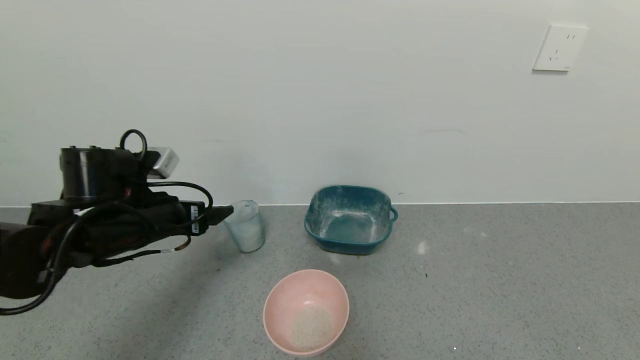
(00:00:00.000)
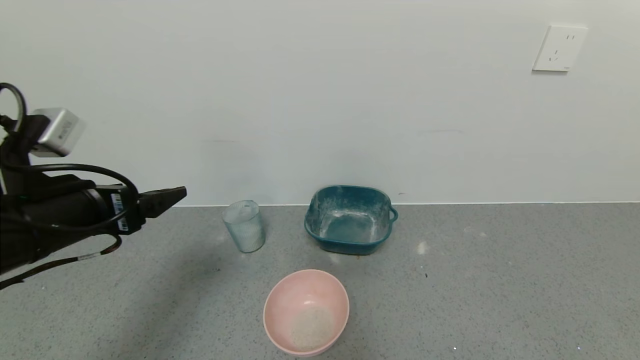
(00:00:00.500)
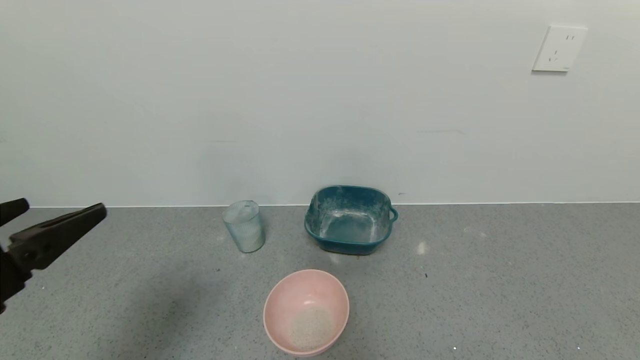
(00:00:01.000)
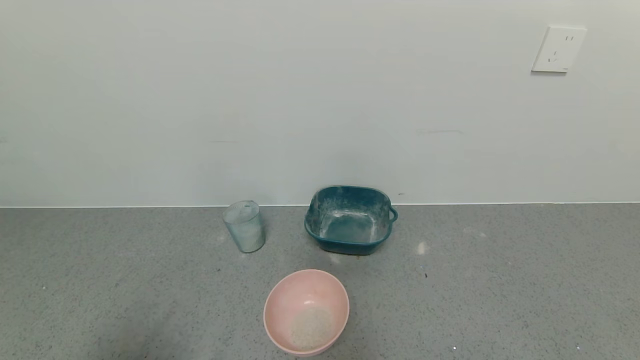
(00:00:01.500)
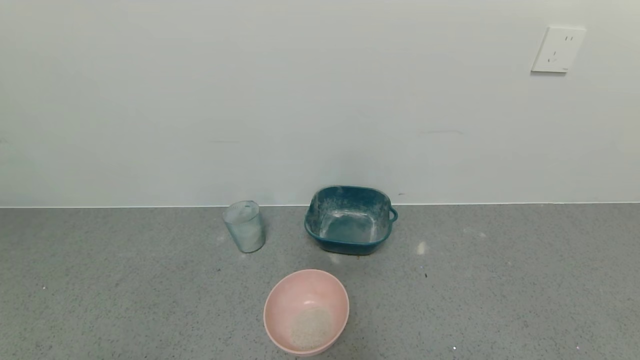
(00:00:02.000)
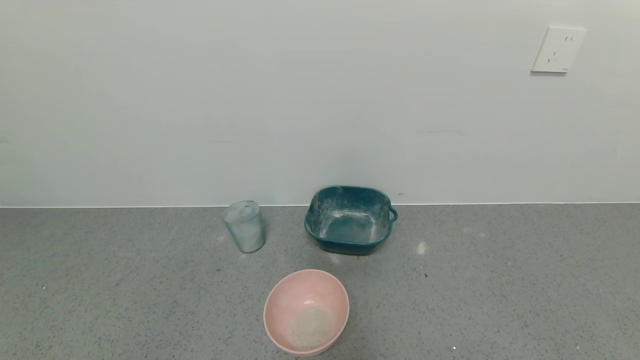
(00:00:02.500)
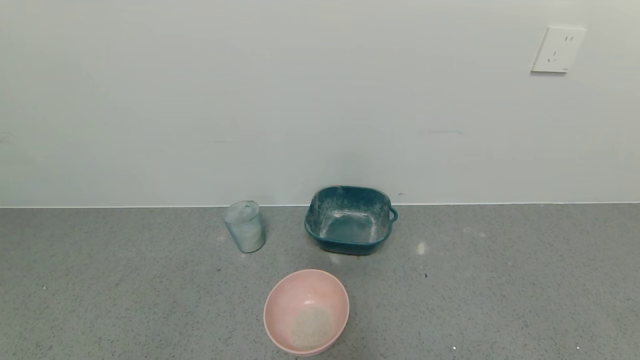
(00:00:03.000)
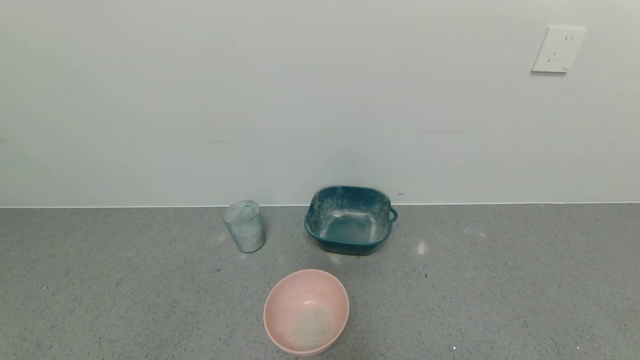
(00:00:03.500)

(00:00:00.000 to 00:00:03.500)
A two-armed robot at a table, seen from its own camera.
Task of the whole recording: use a gripper to pick up the cup and pour the powder into a bowl or tray.
00:00:00.000 - 00:00:02.000: The left gripper is displaced backward by some 30 cm.

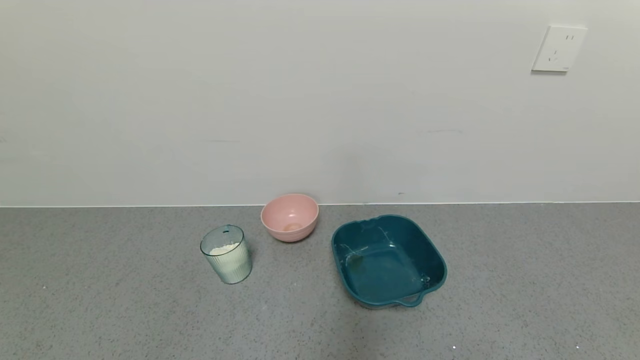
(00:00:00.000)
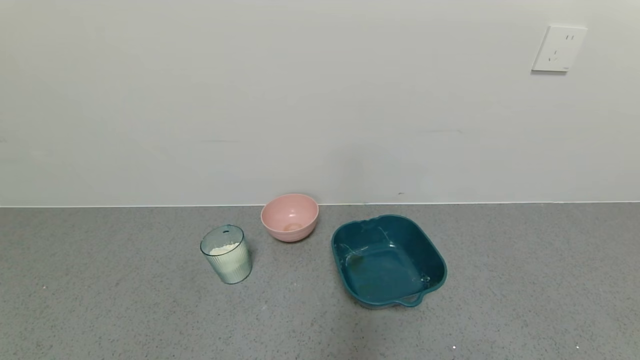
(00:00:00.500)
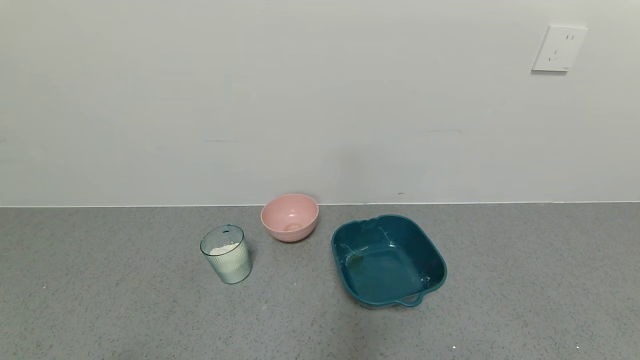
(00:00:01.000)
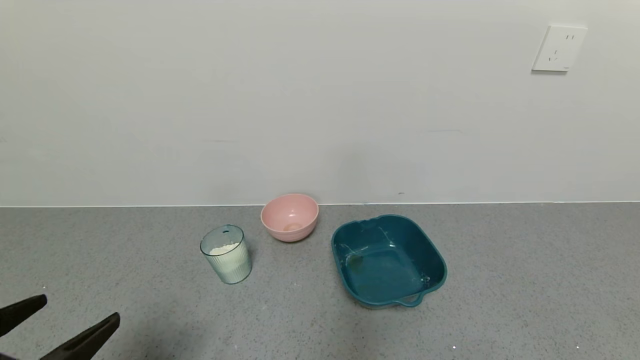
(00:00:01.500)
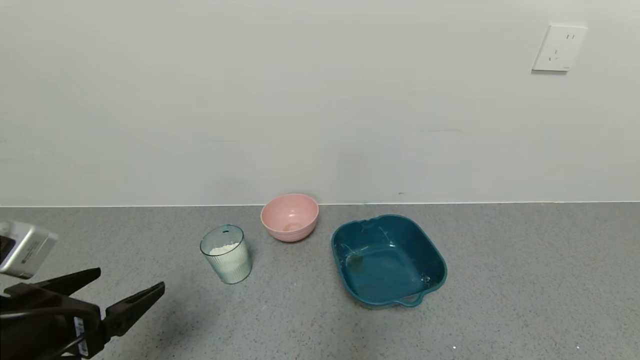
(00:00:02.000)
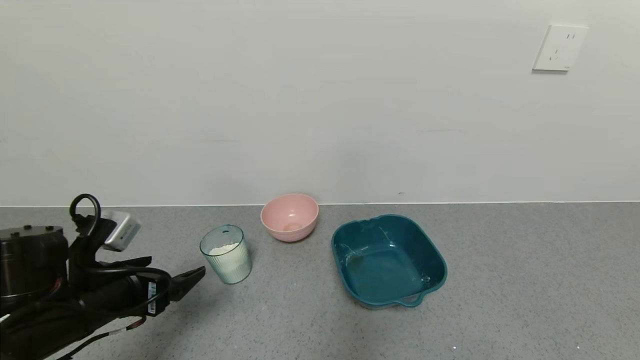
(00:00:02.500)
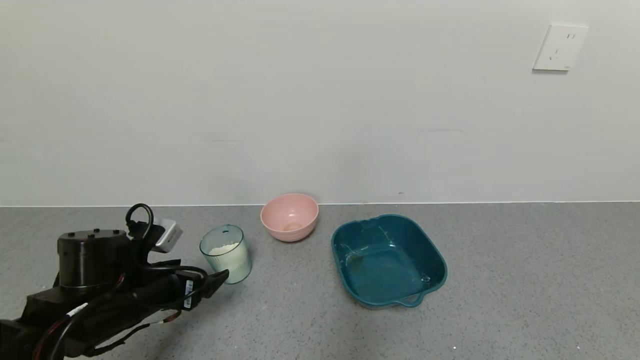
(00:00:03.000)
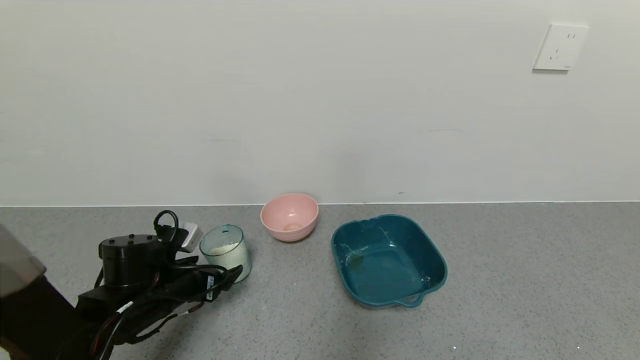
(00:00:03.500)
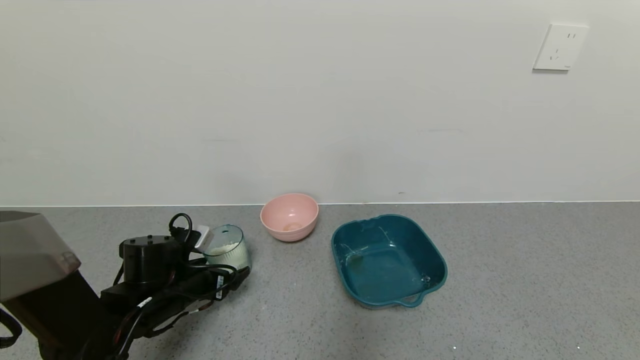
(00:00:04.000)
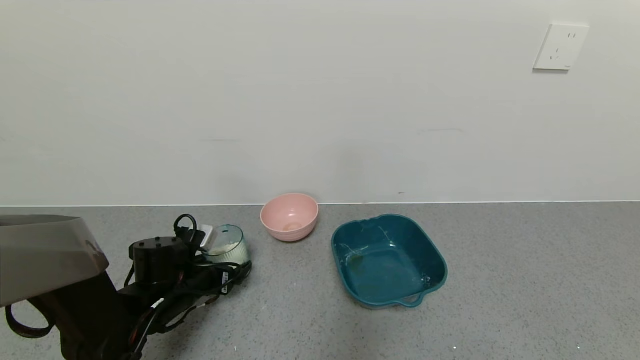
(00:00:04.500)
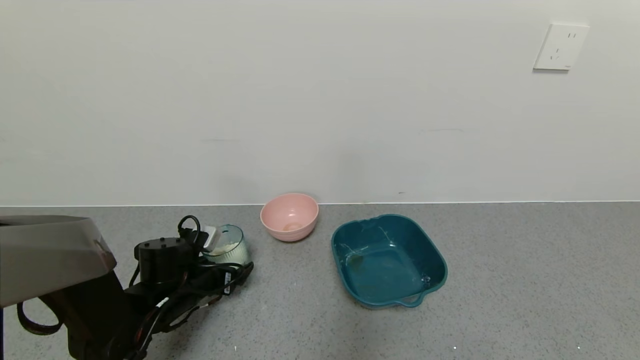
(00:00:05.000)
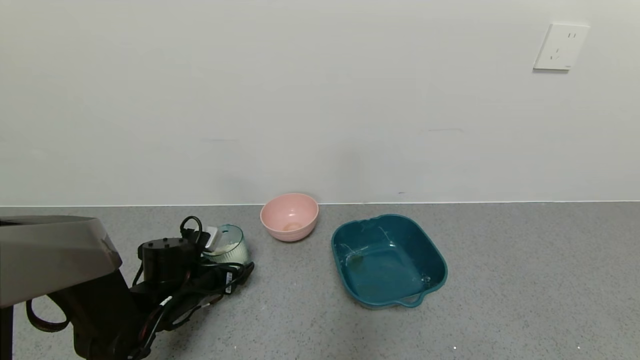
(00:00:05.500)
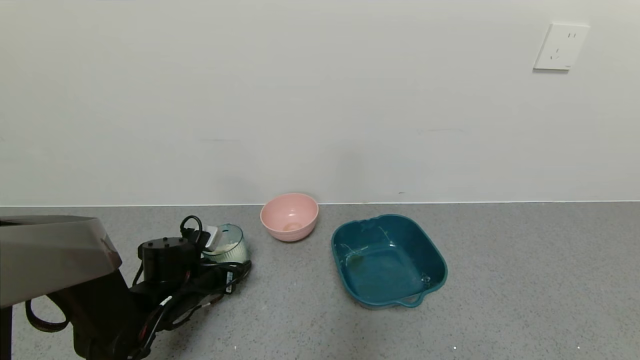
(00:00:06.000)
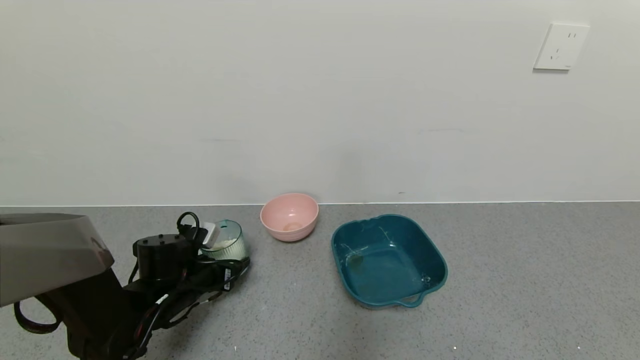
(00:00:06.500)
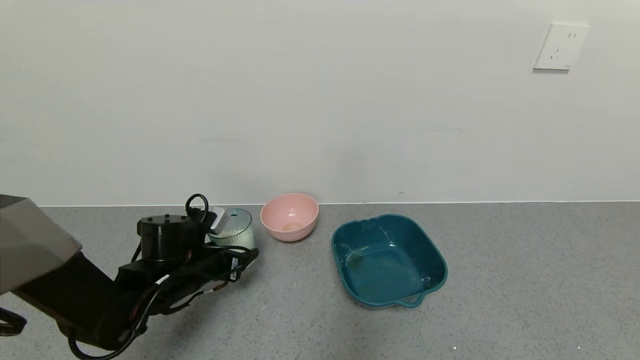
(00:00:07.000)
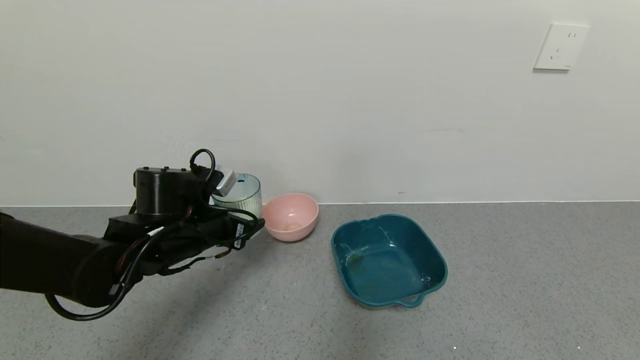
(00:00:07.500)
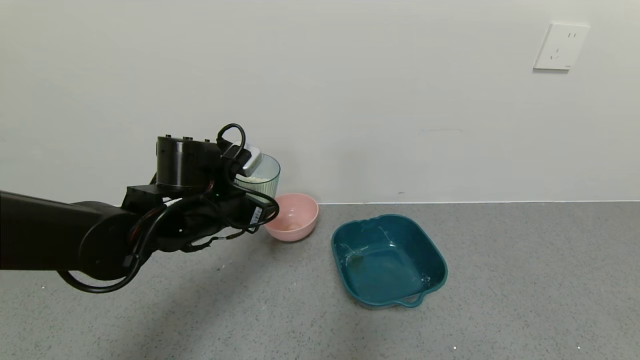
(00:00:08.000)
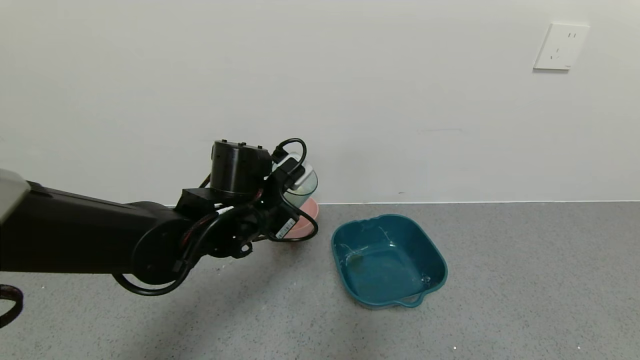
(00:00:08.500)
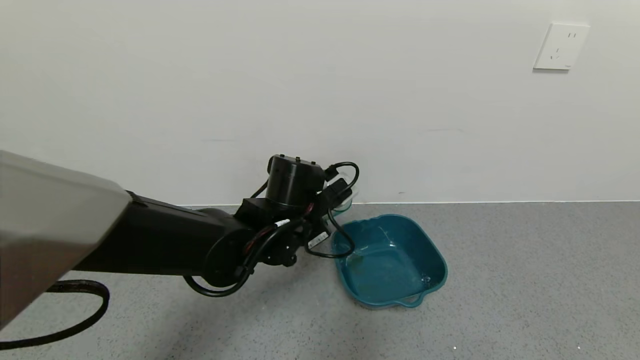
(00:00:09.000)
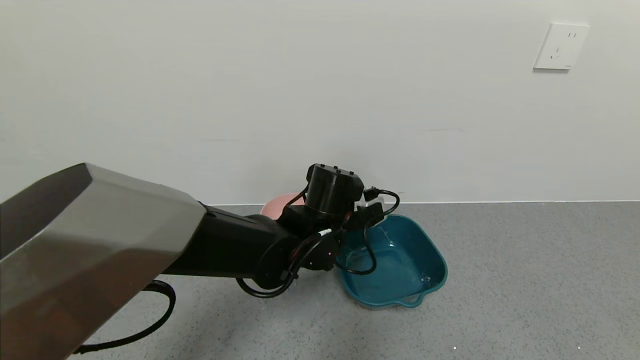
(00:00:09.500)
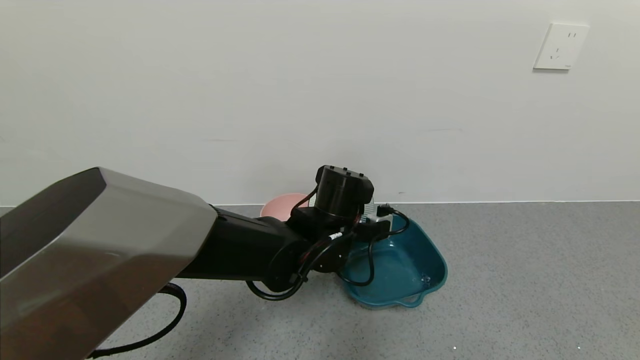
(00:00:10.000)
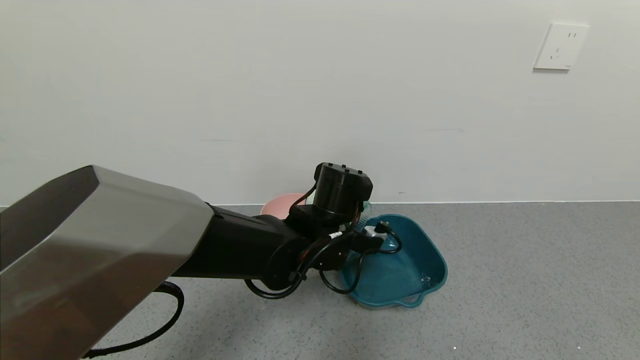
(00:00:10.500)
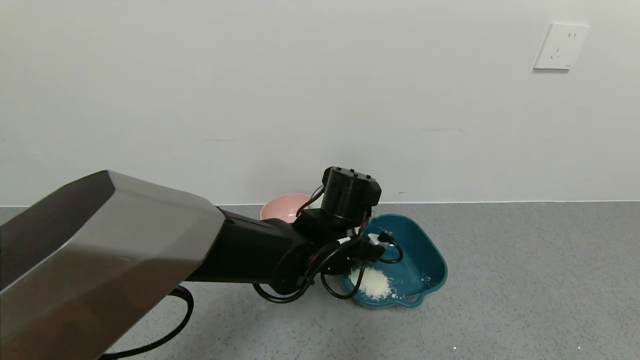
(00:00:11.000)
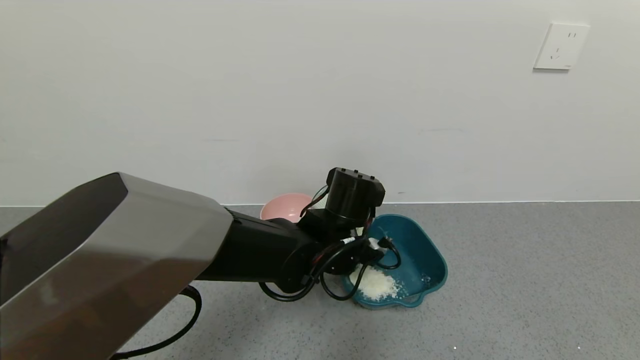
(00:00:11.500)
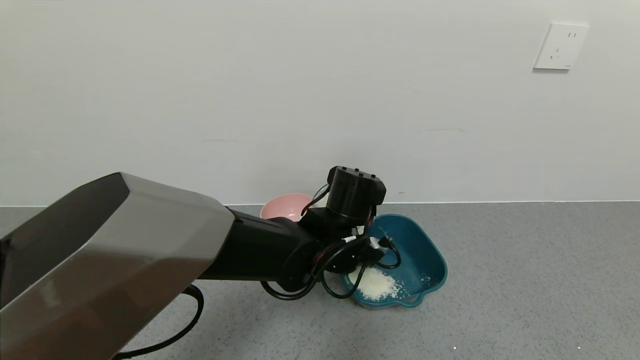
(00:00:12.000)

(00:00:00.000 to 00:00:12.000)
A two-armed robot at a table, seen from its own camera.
Task of the whole recording: use a gripper to pick up the cup and pour the powder into a bowl or tray.
Step, 00:00:00.000 - 00:00:06.000: Grasp the glass of powder with the left gripper.
00:00:00.000 - 00:00:02.000: The left gripper heads forward and upward, covering some 20 cm.
00:00:02.000 - 00:00:04.000: The left gripper goes approximately 20 cm forward and downward.
00:00:04.000 - 00:00:06.000: The left gripper closes up.
00:00:06.000 - 00:00:08.000: The left gripper travels upward and to the right by about 20 cm.
00:00:08.000 - 00:00:10.000: The left gripper heads to the right, covering about 15 cm.

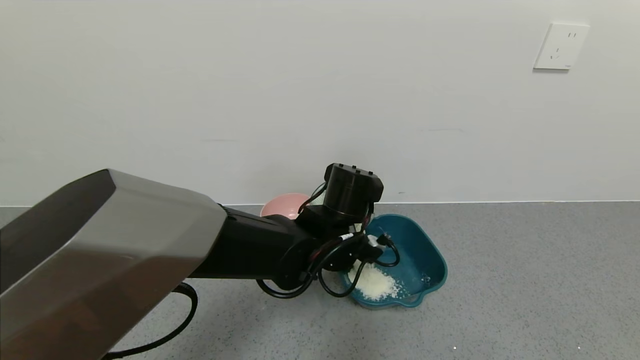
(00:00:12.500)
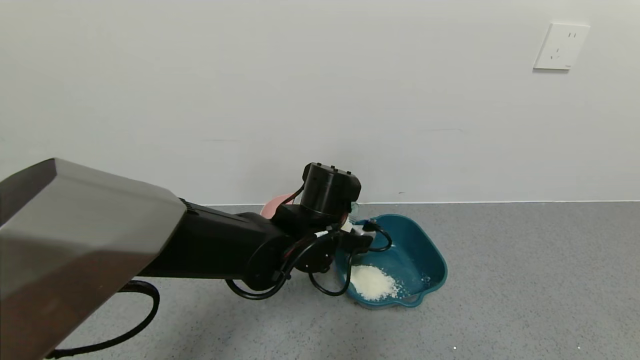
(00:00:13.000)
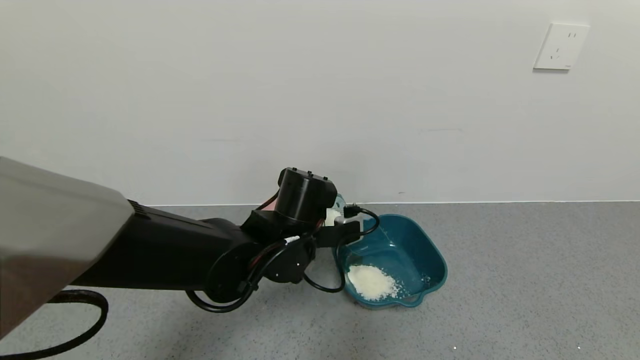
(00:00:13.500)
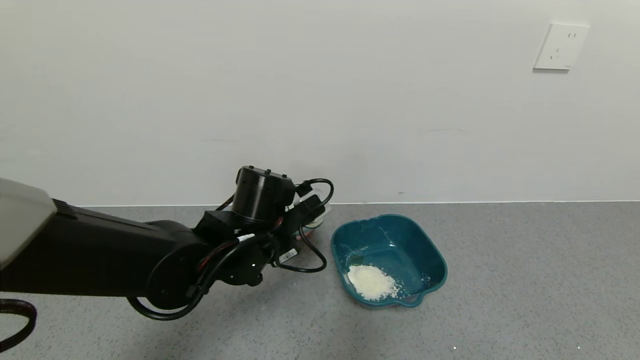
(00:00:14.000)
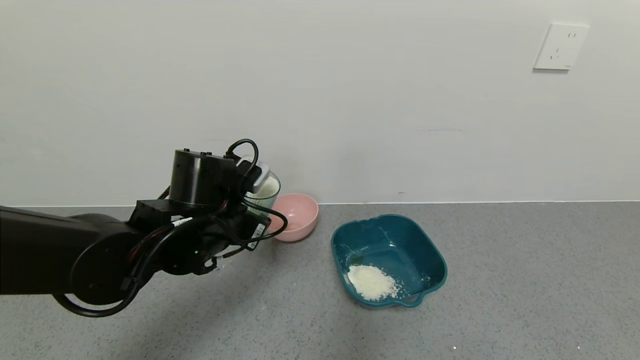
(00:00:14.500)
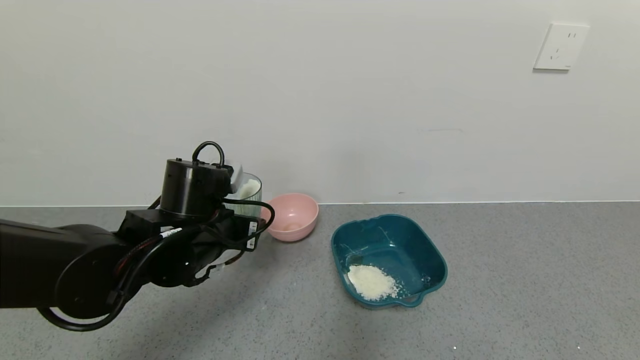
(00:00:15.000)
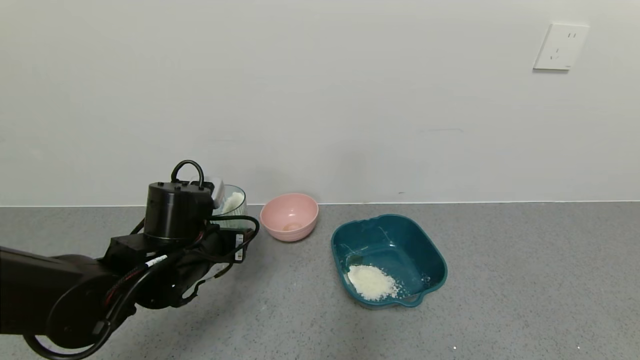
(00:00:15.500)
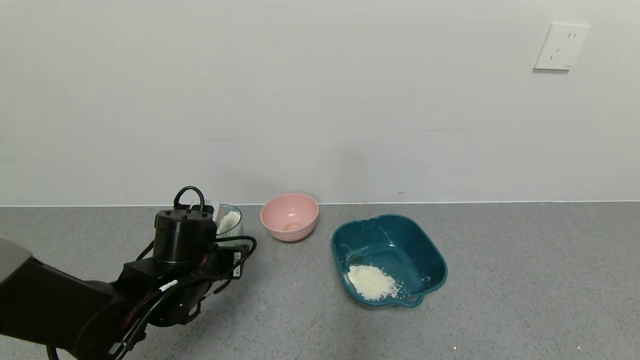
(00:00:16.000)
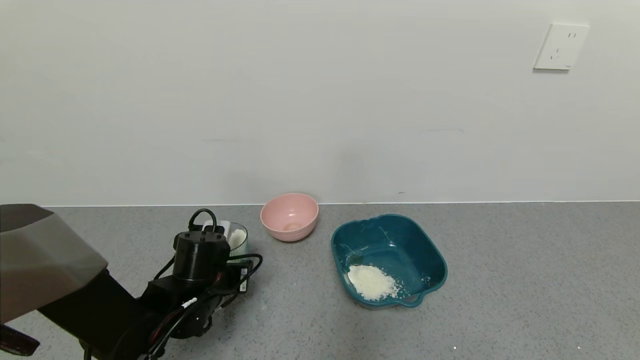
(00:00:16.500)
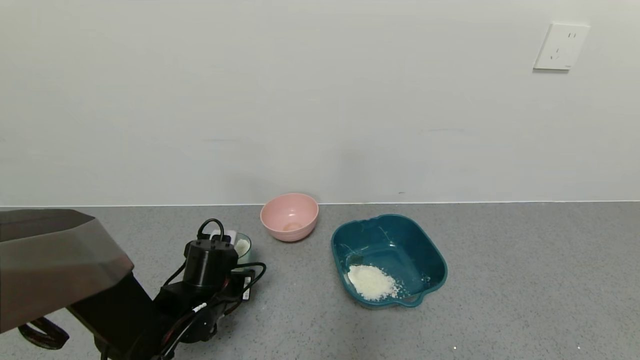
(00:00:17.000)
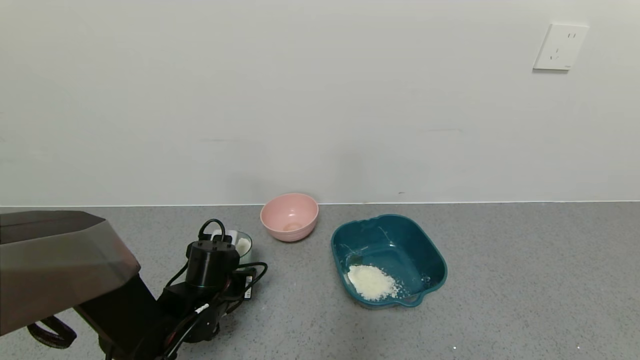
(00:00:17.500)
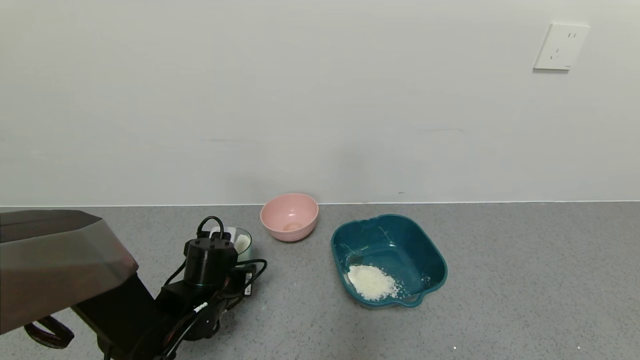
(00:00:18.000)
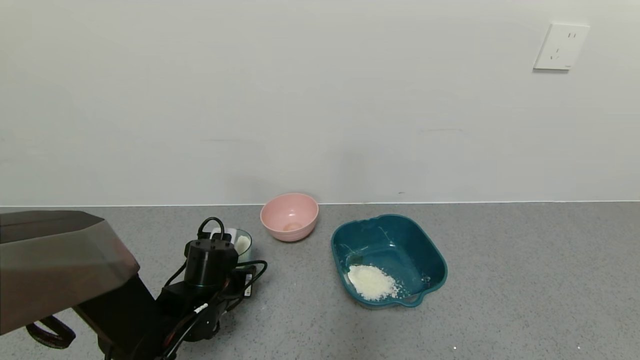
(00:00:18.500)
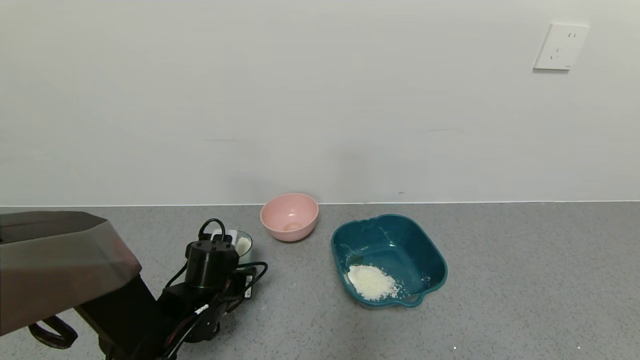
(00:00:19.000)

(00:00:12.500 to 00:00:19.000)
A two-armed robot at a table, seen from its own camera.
Task of the whole recording: use a gripper to pick up the cup and pour the powder into a bowl or tray.
00:00:12.500 - 00:00:14.500: The left gripper goes some 15 cm to the left.
00:00:14.500 - 00:00:17.000: The left gripper shifts approximately 15 cm downward.
00:00:17.000 - 00:00:19.000: Neither gripper changes place.
